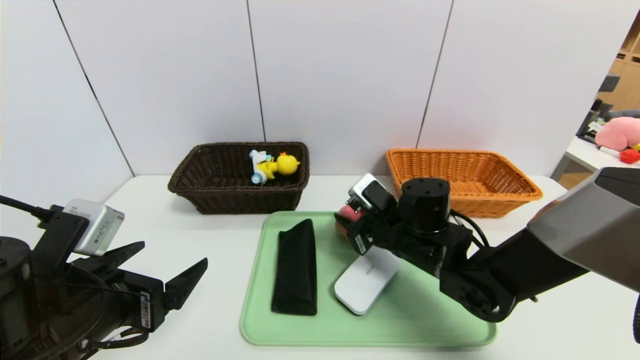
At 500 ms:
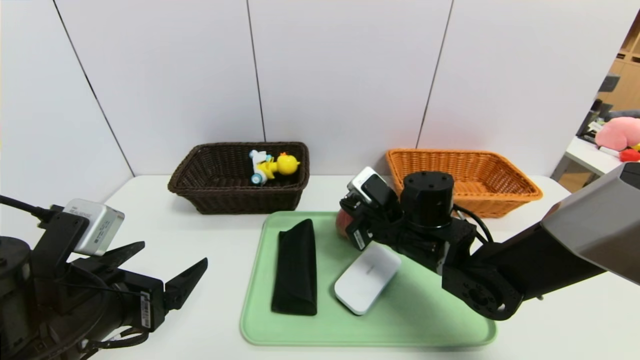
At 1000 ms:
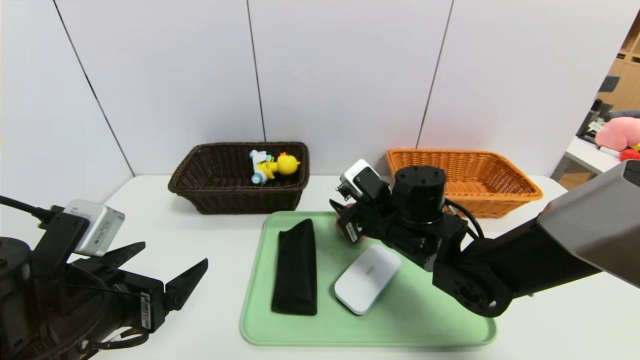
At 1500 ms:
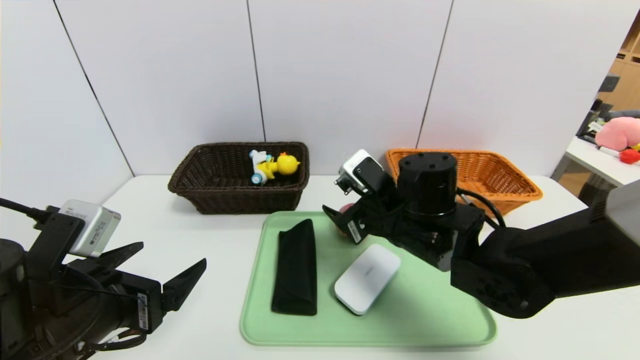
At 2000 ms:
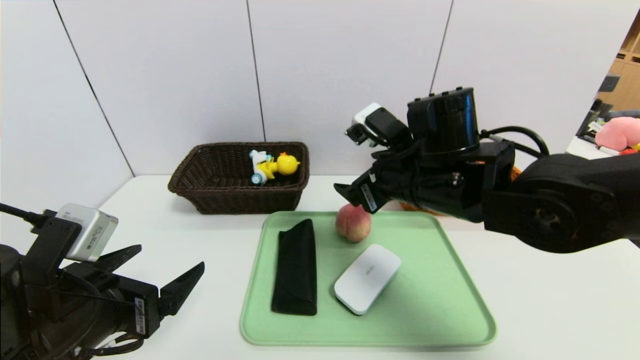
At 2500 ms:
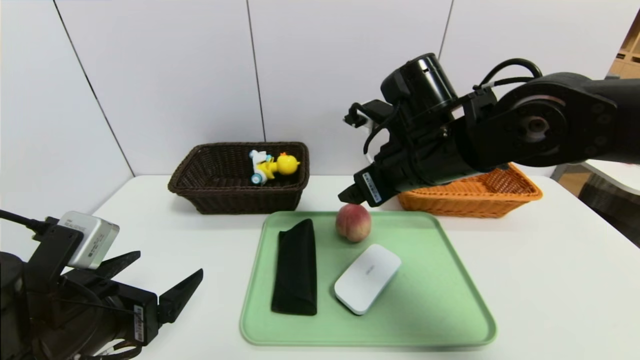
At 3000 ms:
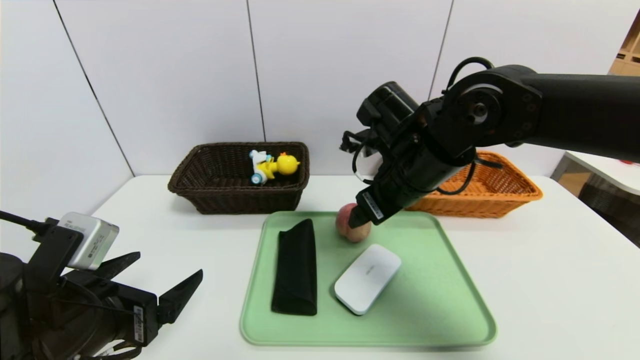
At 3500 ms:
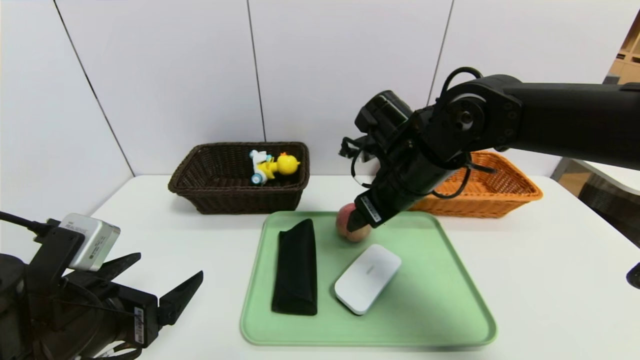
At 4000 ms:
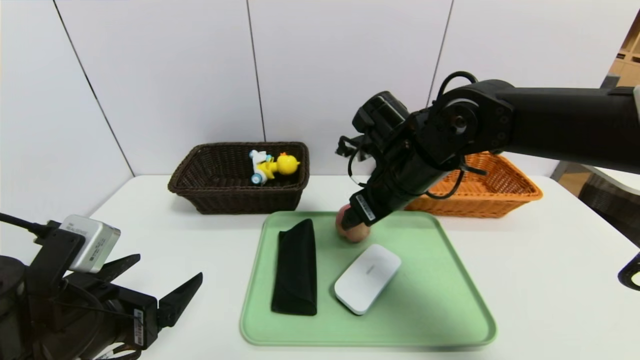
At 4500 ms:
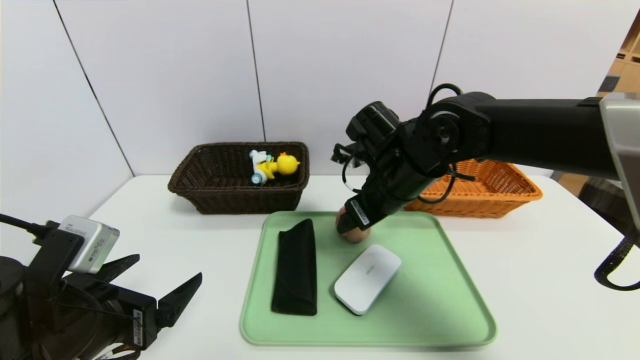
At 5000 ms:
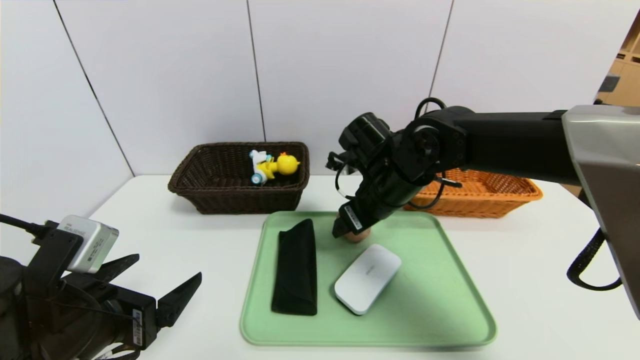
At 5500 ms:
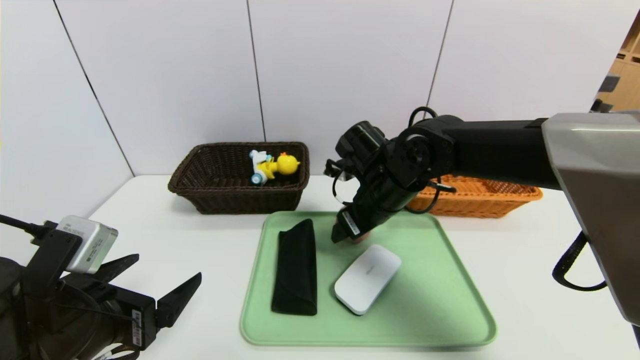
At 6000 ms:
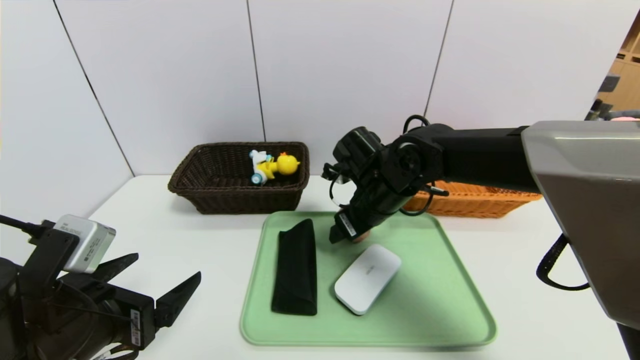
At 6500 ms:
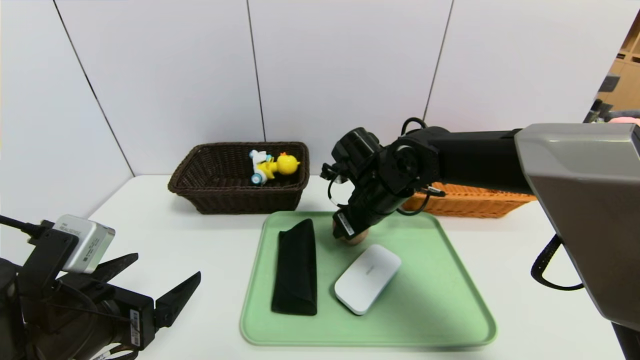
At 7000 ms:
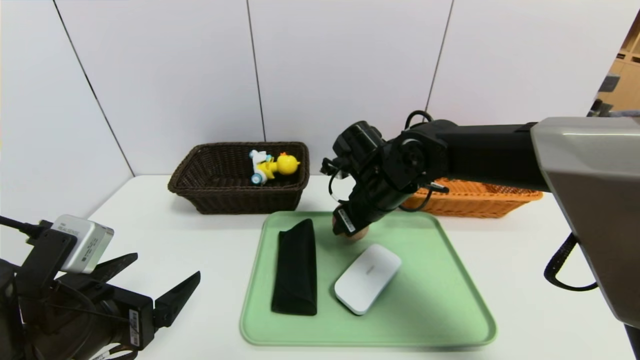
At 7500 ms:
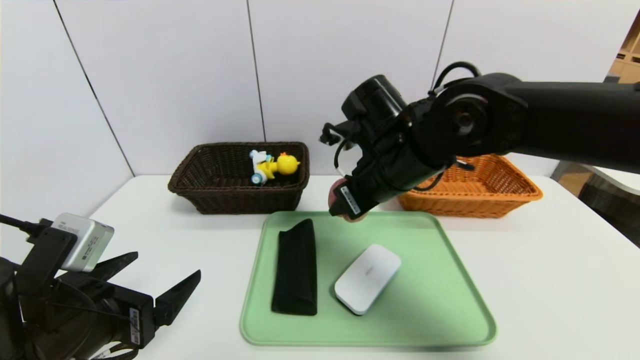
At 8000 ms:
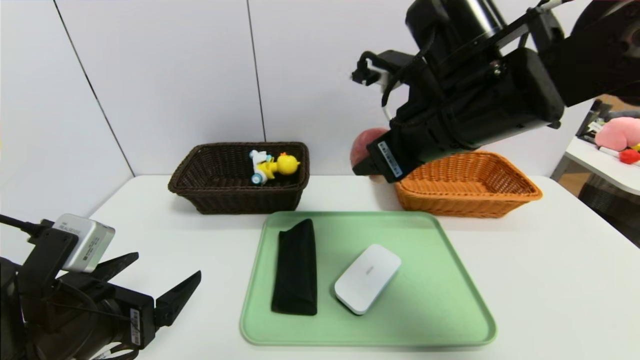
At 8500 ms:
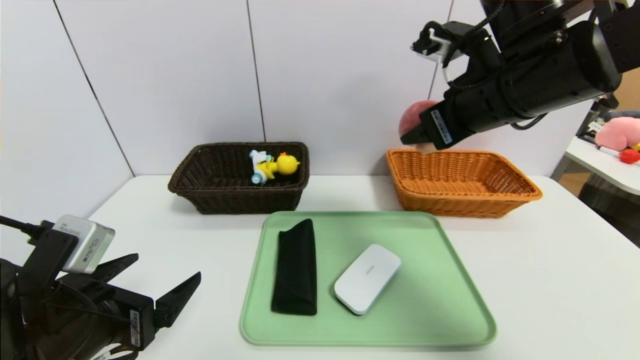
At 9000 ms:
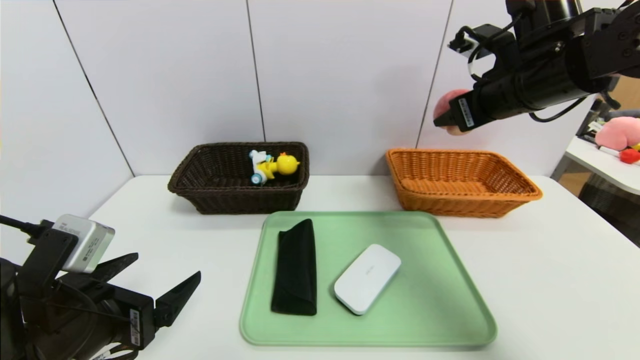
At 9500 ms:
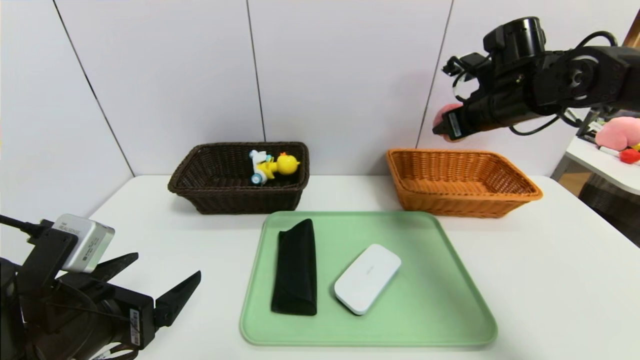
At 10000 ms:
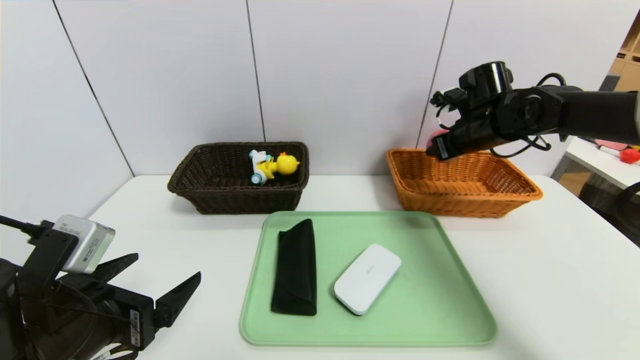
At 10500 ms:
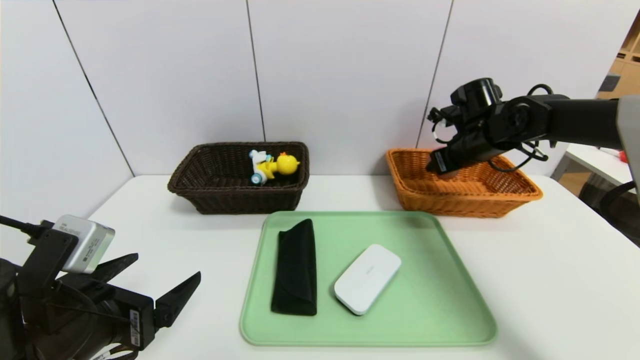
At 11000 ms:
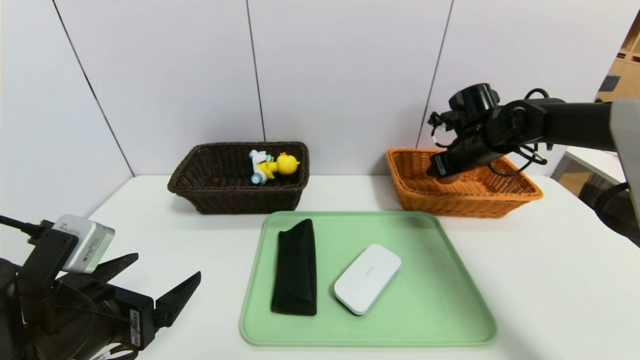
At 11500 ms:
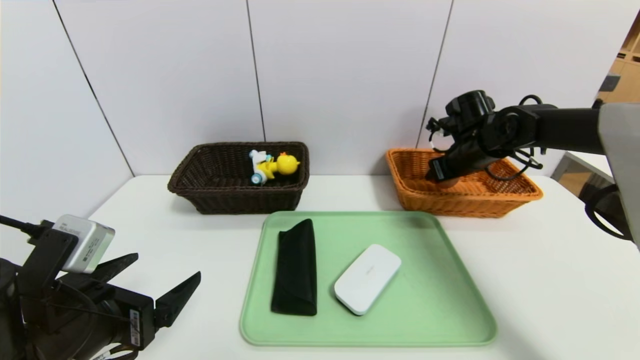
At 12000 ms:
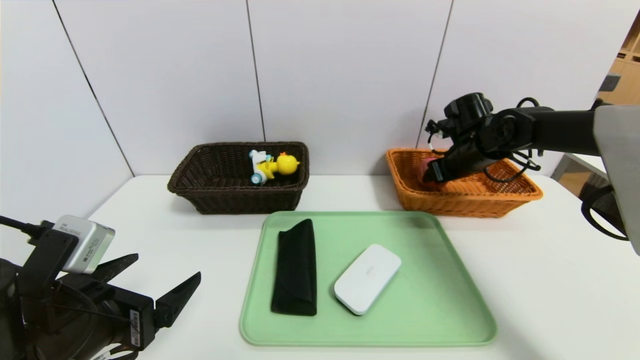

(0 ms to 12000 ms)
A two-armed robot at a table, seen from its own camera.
Task of the whole recording: place the food in the right basket with the right gripper, and place the non food items in the left basket with the left gripper.
0 ms - 2000 ms: The right gripper is displaced upward by roughly 15 cm, and opens its fingers.
4000 ms - 6000 ms: The right gripper is displaced downward by some 5 cm.
6000 ms - 8000 ms: The right gripper travels upward and backward by some 20 cm, and closes up.
8000 ms - 10000 ms: The right gripper travels forward, to the right and downward by some 25 cm.
10000 ms - 12000 ms: The right gripper opens.

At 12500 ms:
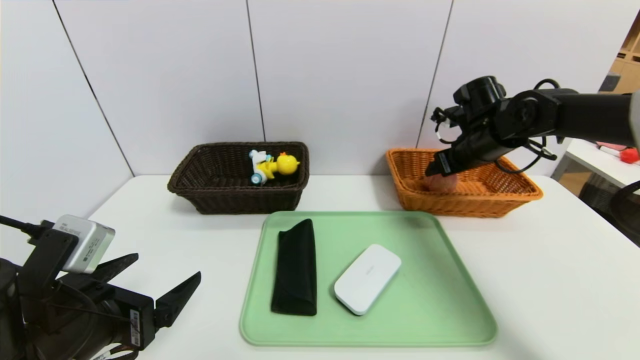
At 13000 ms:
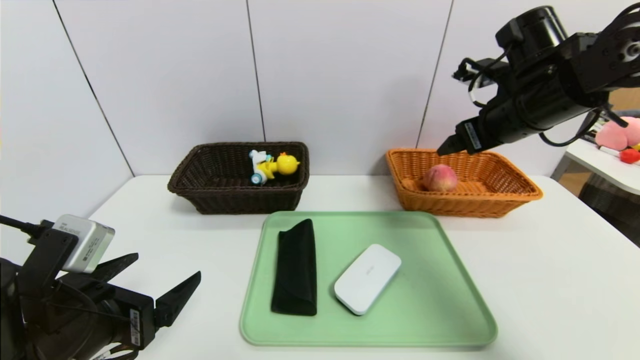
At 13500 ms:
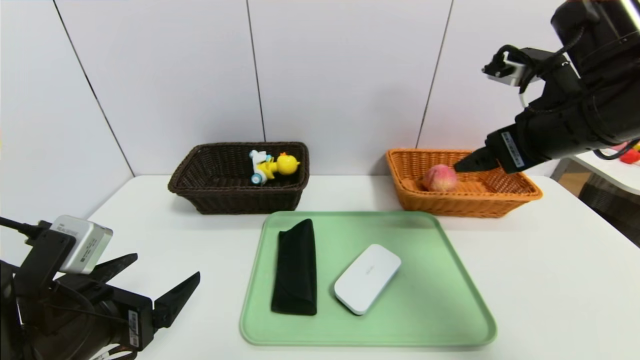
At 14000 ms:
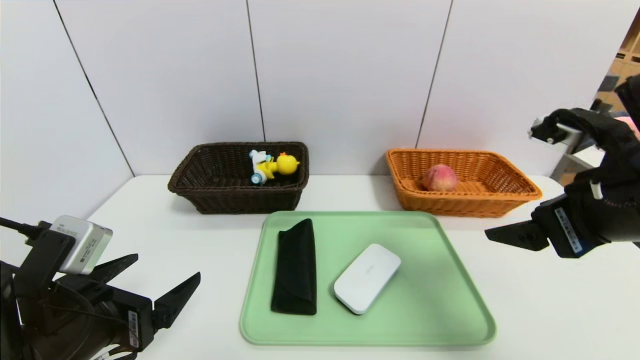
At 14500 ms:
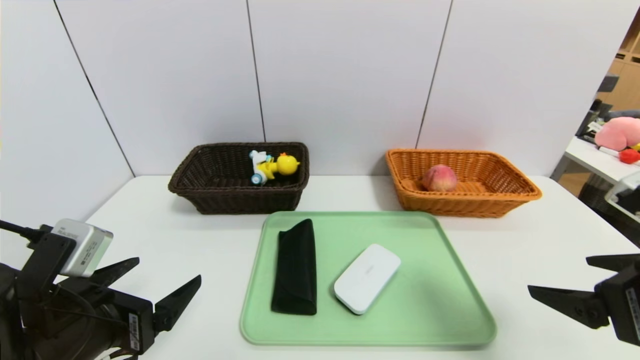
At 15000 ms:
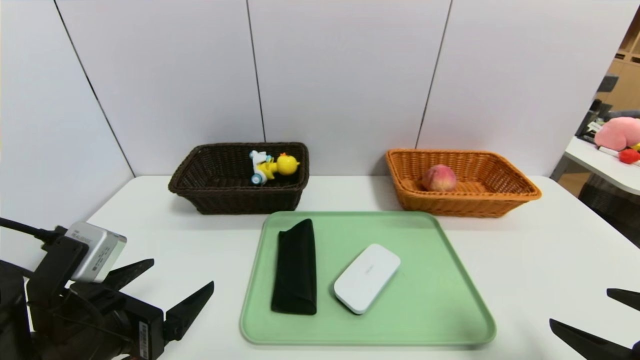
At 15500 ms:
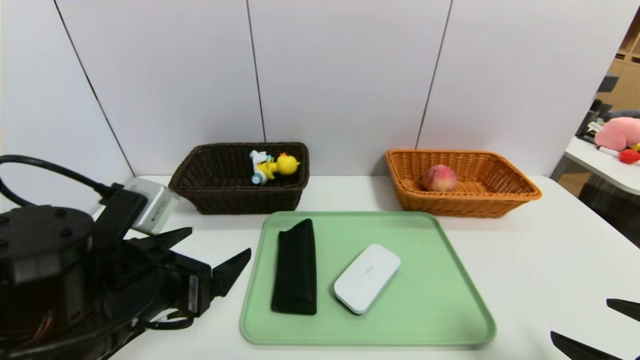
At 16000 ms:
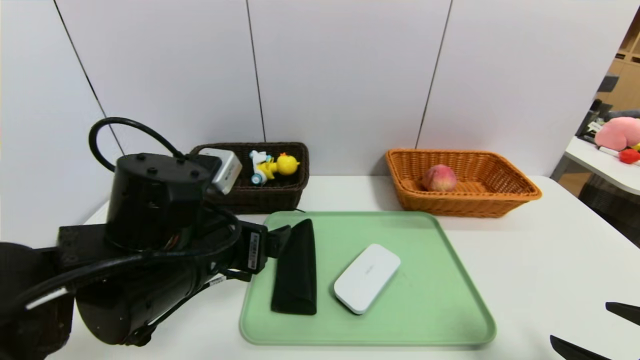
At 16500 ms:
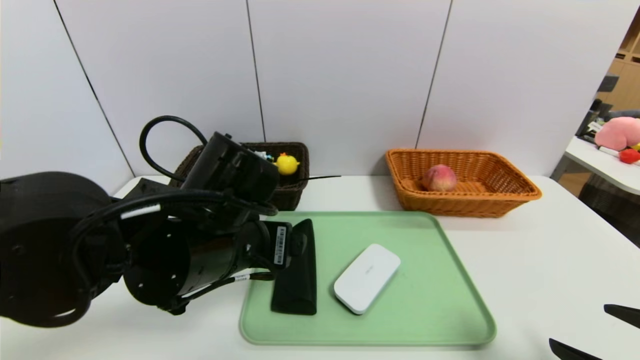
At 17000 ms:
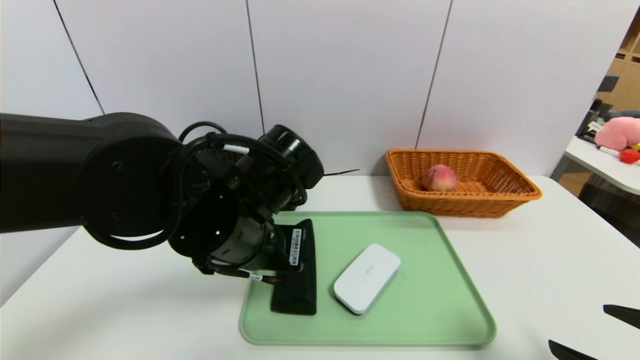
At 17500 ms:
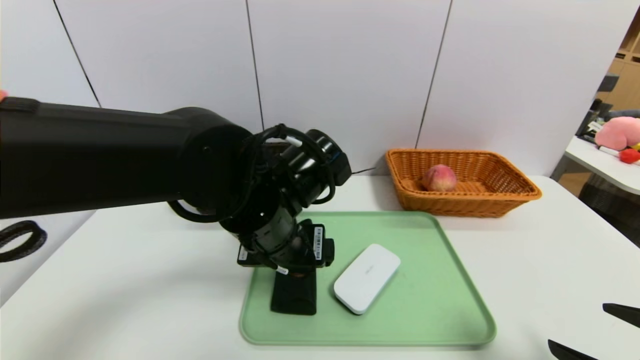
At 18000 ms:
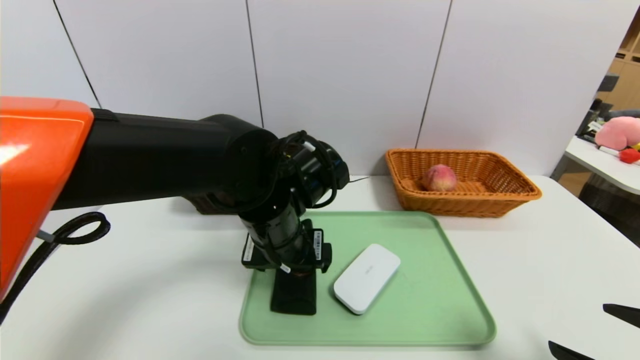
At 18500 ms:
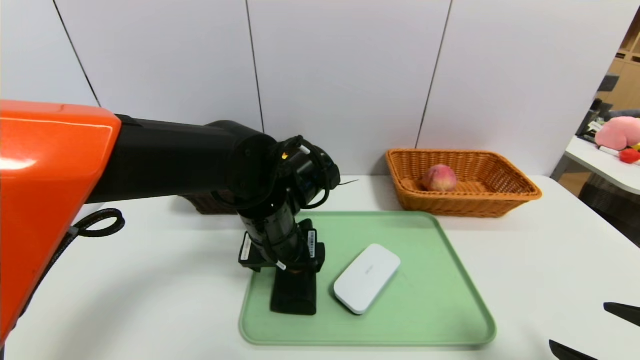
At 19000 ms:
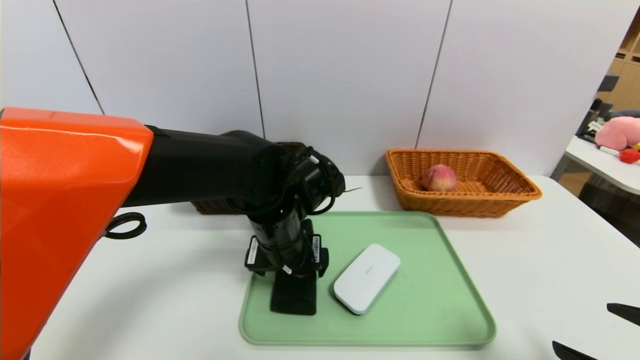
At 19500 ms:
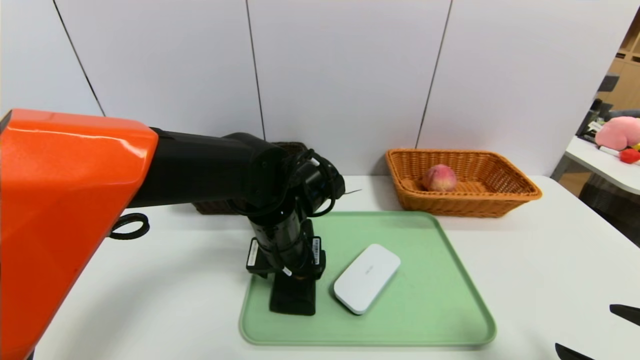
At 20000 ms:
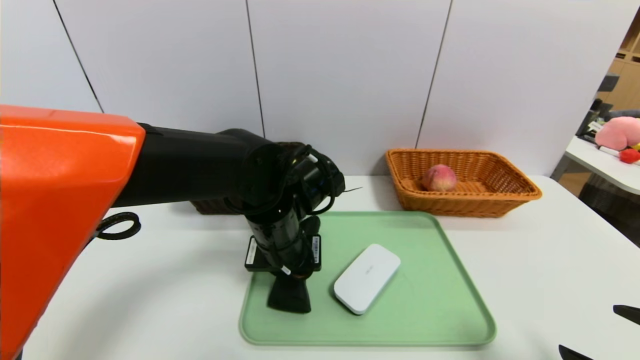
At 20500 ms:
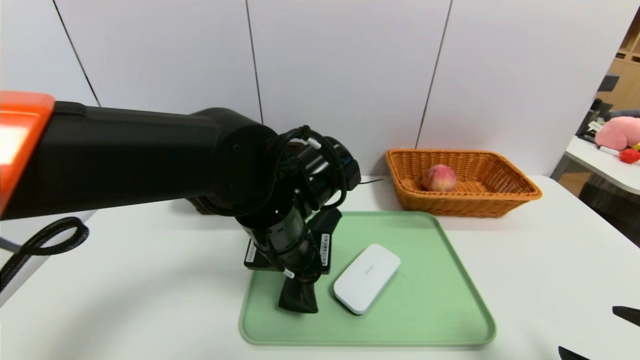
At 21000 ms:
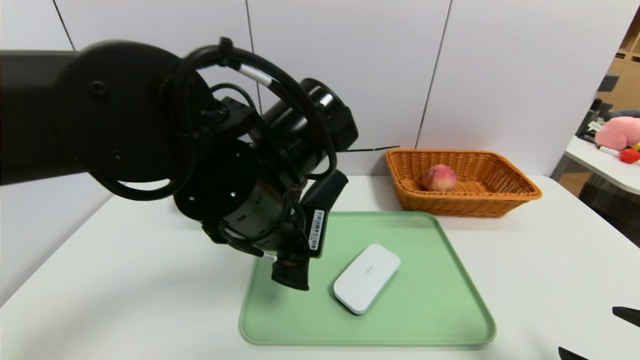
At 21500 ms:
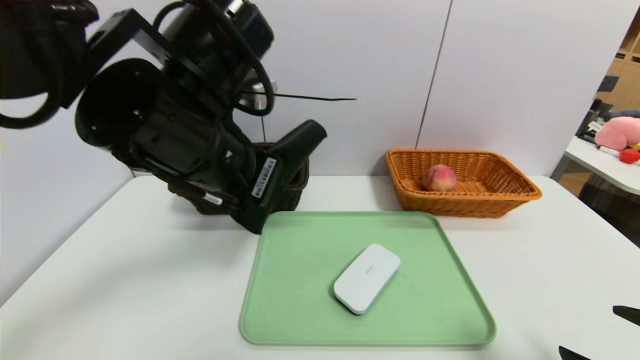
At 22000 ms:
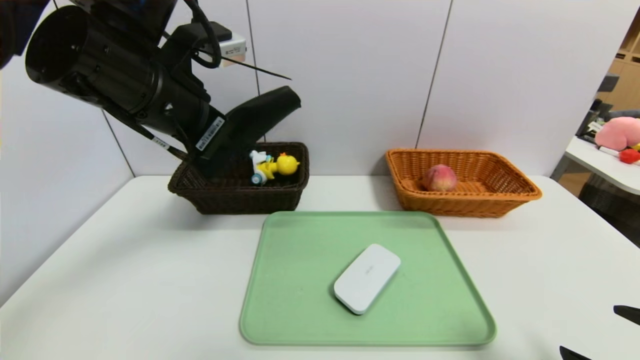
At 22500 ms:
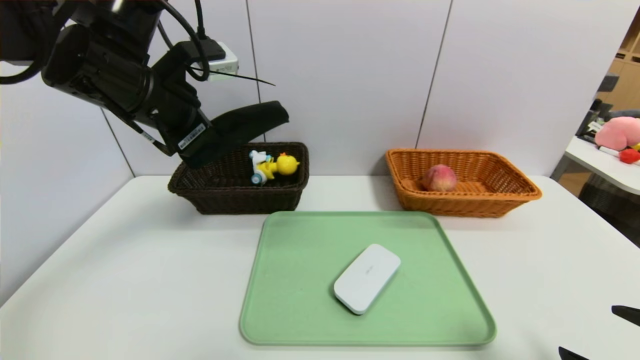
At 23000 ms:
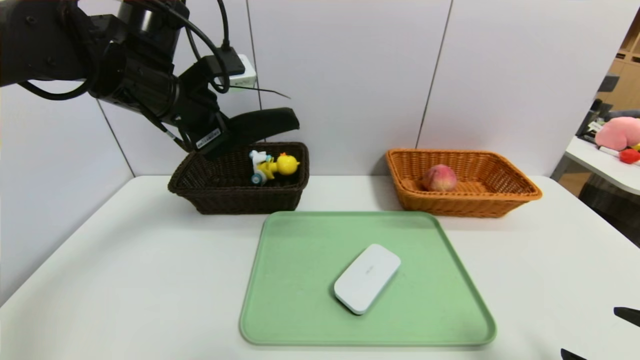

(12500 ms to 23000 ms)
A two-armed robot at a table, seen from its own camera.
Task of the whole recording: place the food in the right basket with the right gripper, and place the non food items in the left basket with the left gripper.
12500 ms - 14500 ms: The right gripper moves backward, some 30 cm.
14500 ms - 16500 ms: The left gripper travels to the right, forward and upward by about 15 cm. Meanwhile the right gripper is displaced downward by approximately 5 cm.
16500 ms - 19000 ms: The left gripper travels forward by roughly 10 cm.
19000 ms - 21000 ms: The left gripper is displaced upward and backward by approximately 15 cm, and closes up.
21000 ms - 23000 ms: The left gripper is displaced to the left, forward and upward by about 20 cm.
